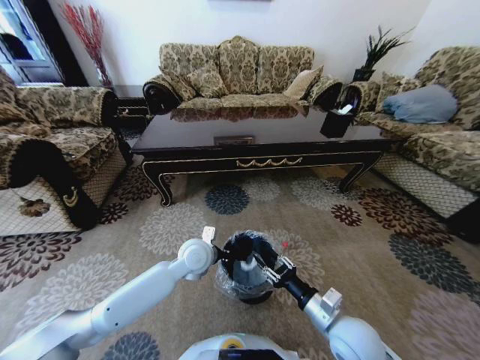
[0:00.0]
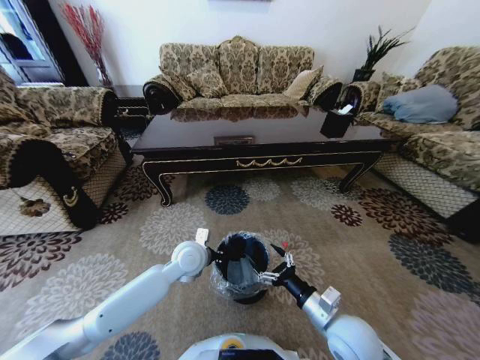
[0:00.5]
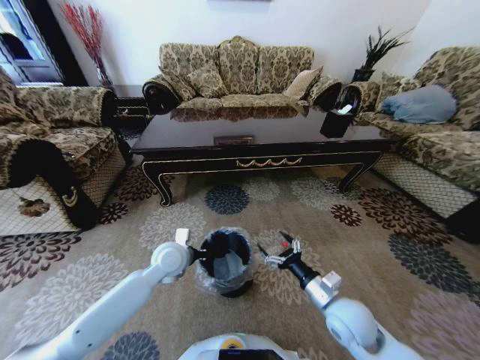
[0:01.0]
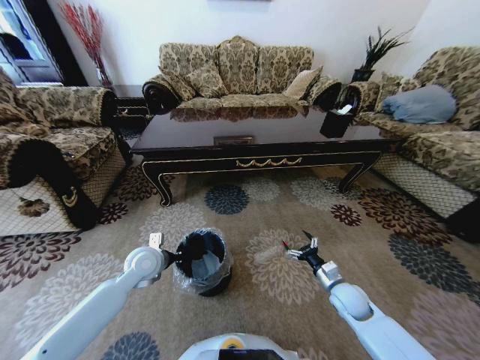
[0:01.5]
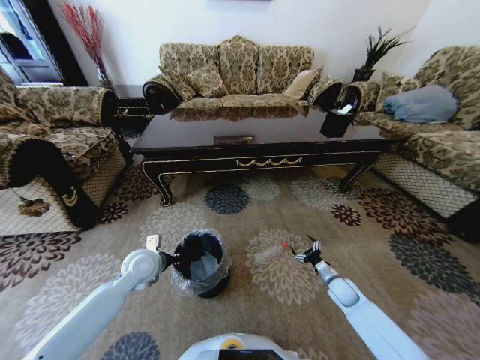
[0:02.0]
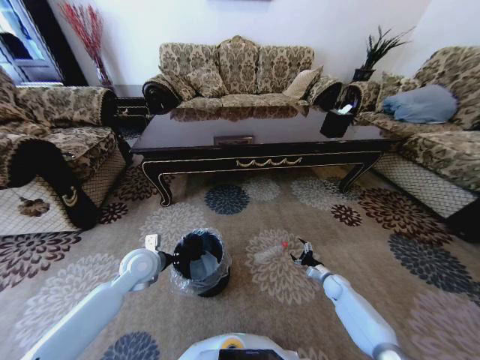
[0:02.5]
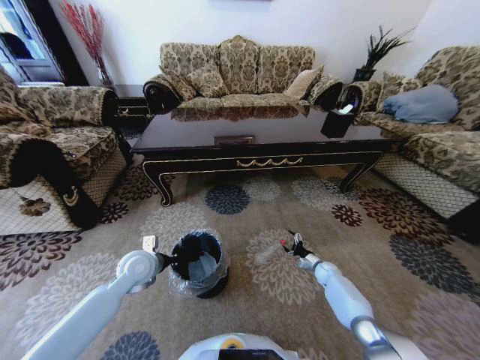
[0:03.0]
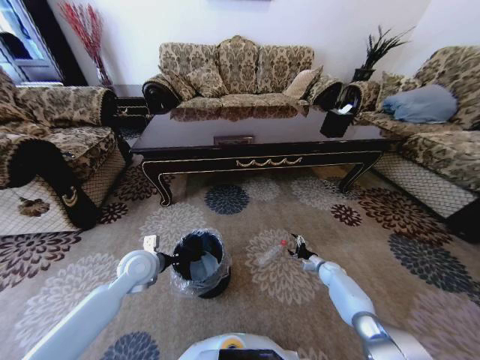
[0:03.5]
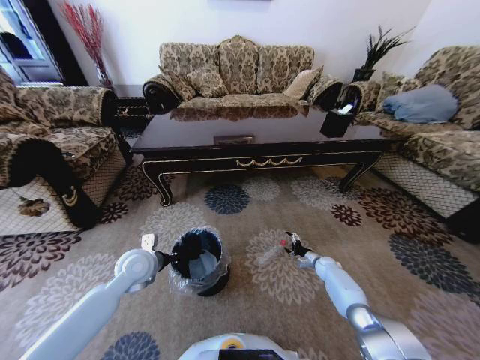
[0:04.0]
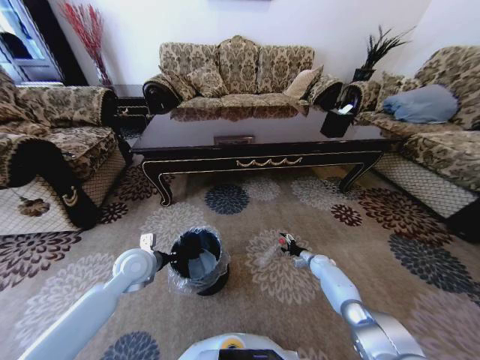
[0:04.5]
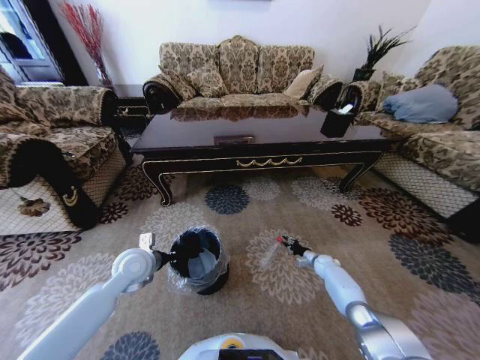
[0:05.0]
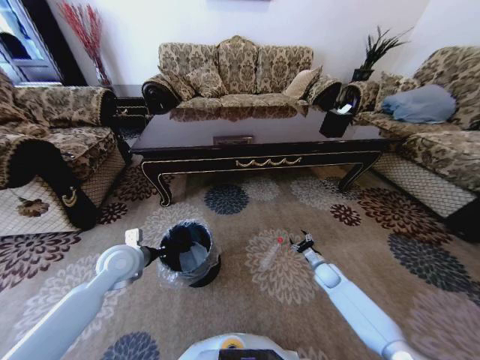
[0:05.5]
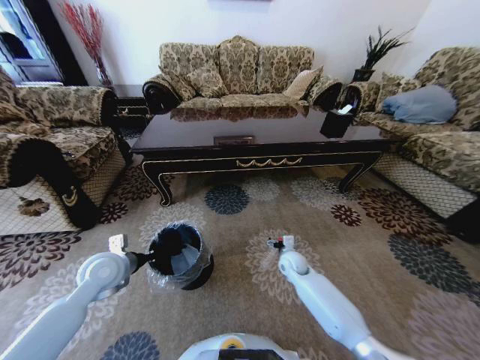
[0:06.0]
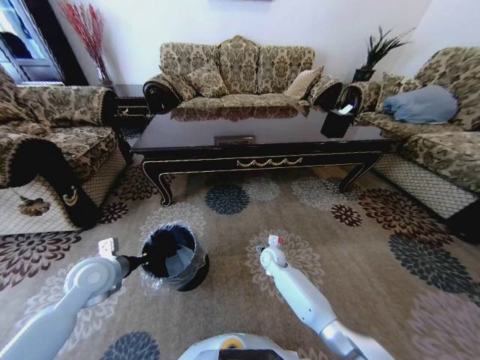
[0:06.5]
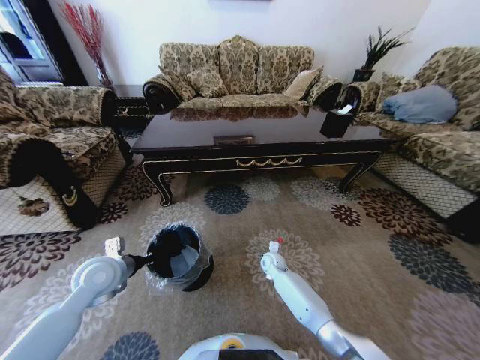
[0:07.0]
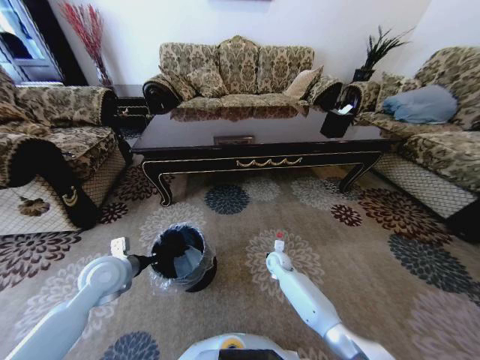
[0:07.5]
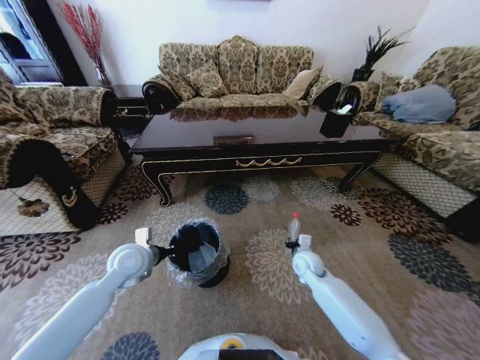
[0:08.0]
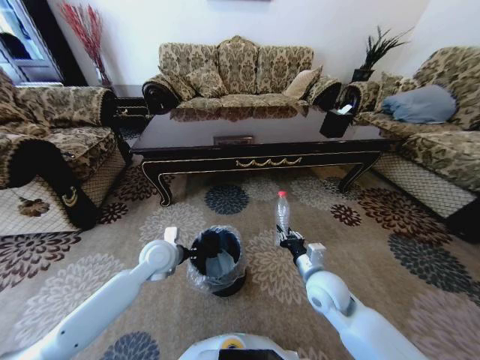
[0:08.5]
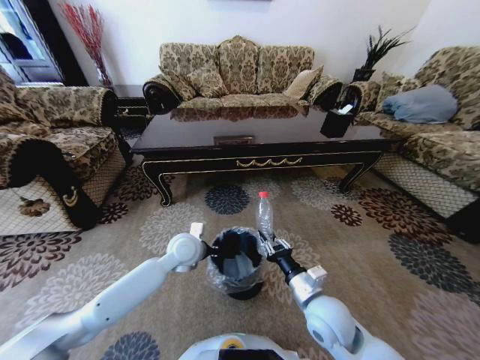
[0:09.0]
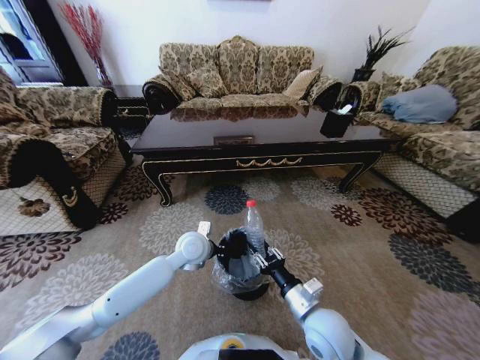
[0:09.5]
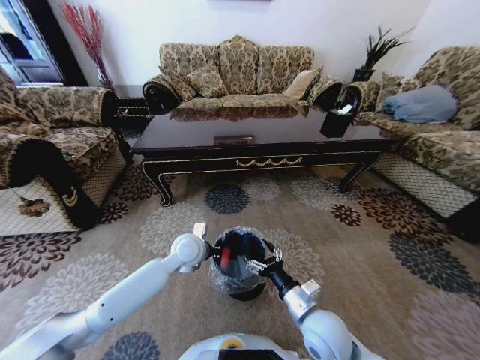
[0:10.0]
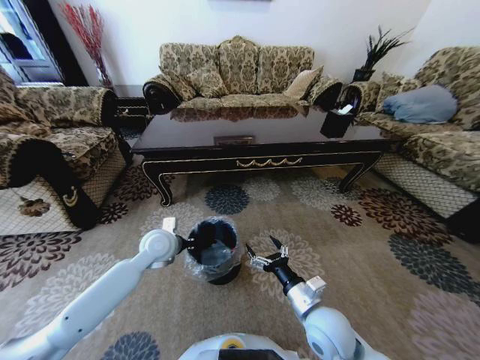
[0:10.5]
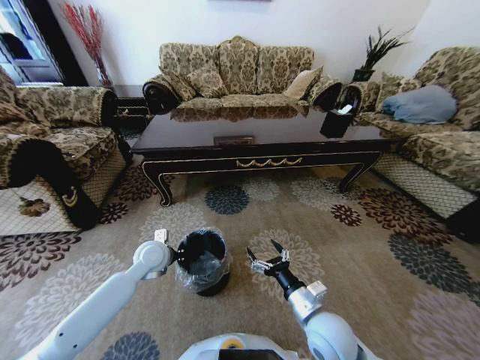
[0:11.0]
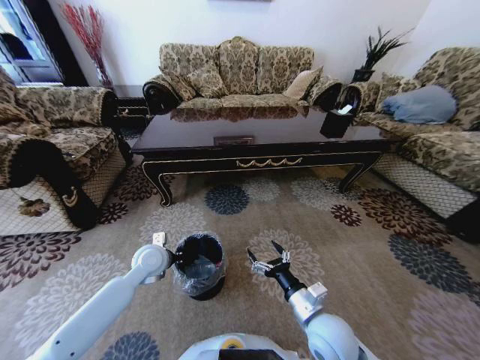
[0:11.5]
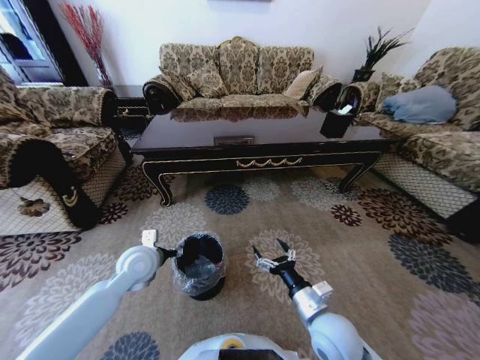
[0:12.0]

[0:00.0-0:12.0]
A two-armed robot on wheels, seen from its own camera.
Task of the whole recording: Move to the front of the table and pick up the trash from the floor, then place it into the trash bin.
0:00.0 to 0:02.0: The left gripper travels to the left by some 15 cm; the right gripper moves downward, forward and to the right, about 30 cm, and opens up.
0:02.0 to 0:04.0: The right gripper heads forward and downward, covering roughly 15 cm.
0:04.0 to 0:06.0: The left gripper is displaced to the left by about 5 cm. Meanwhile the right gripper travels to the left and upward by some 25 cm, and closes and opens again.
0:06.0 to 0:08.0: The right gripper moves upward, about 5 cm, and closes its fingers. The left gripper travels to the right by some 5 cm.
0:08.0 to 0:10.0: The left gripper goes approximately 15 cm to the right, while the right gripper travels backward by about 20 cm, and opens up.
0:10.0 to 0:12.0: The left gripper is displaced to the left by some 10 cm, and opens.

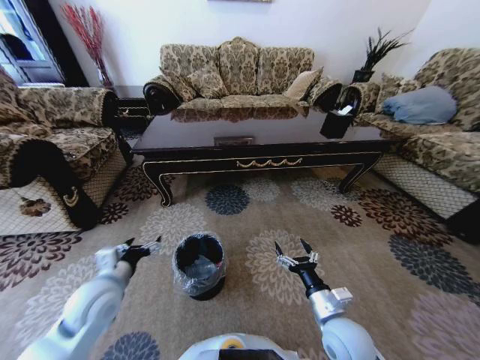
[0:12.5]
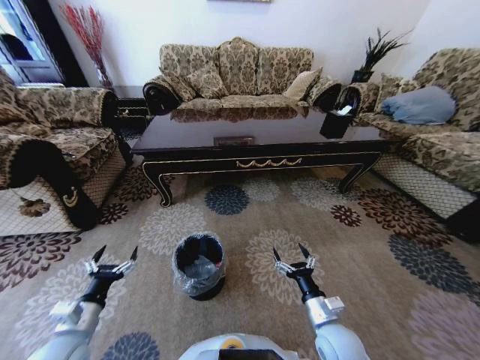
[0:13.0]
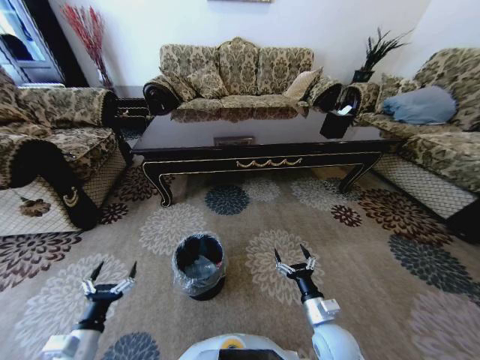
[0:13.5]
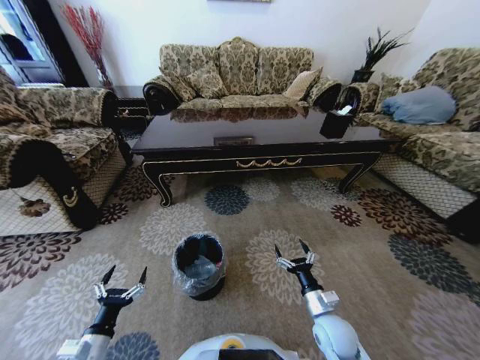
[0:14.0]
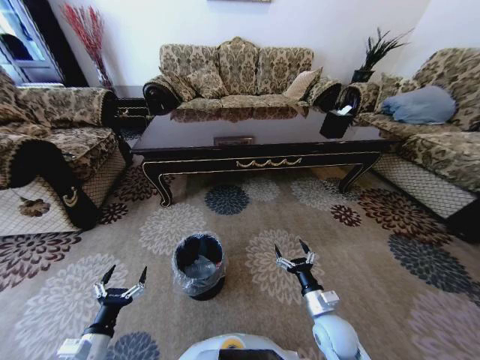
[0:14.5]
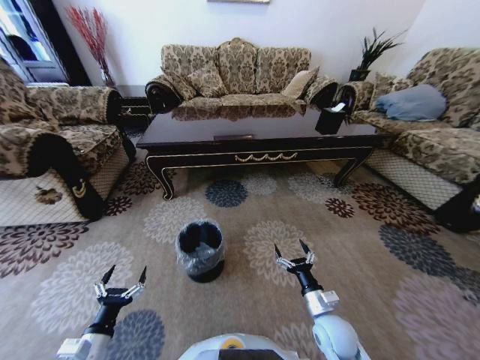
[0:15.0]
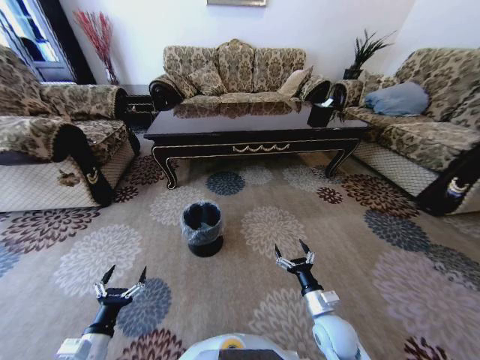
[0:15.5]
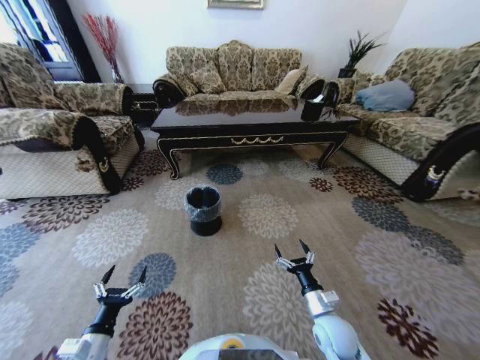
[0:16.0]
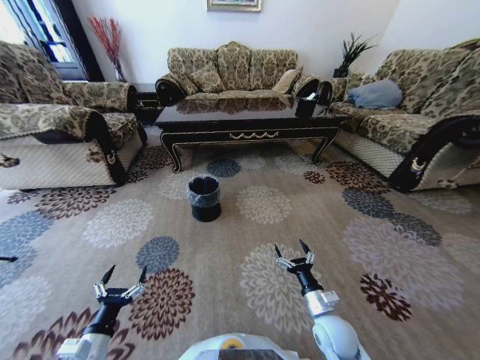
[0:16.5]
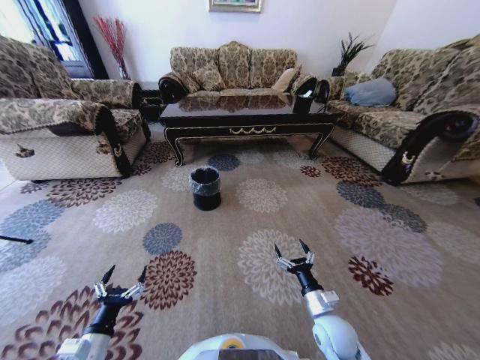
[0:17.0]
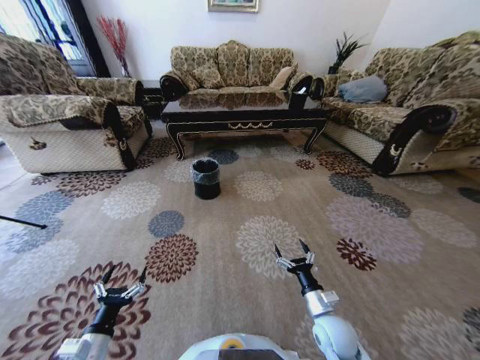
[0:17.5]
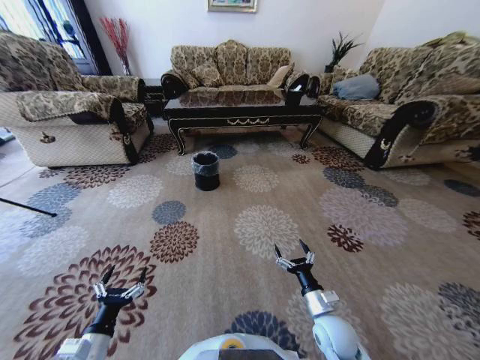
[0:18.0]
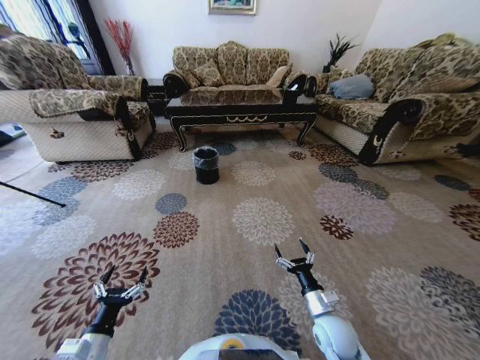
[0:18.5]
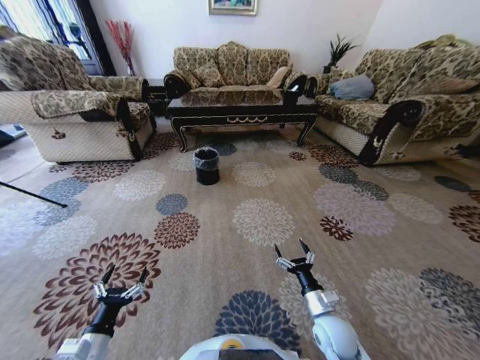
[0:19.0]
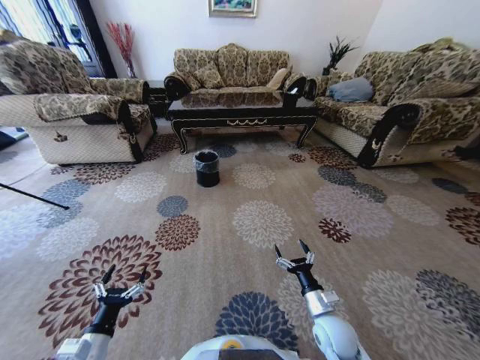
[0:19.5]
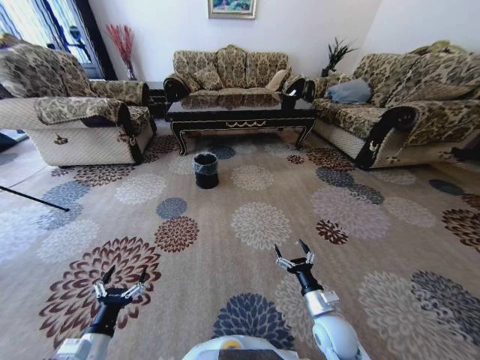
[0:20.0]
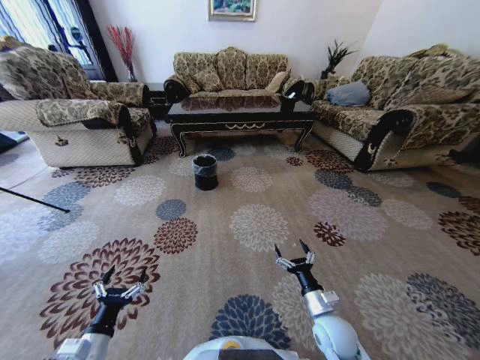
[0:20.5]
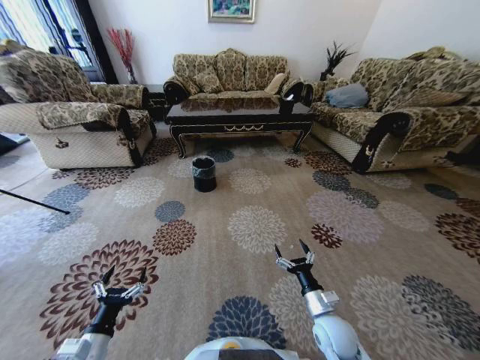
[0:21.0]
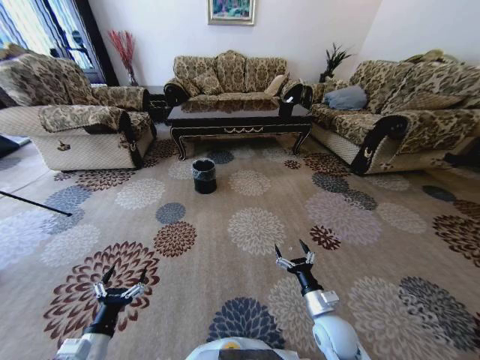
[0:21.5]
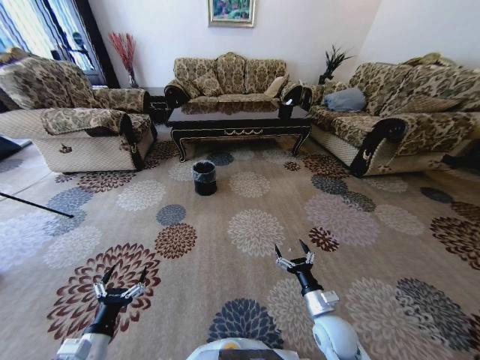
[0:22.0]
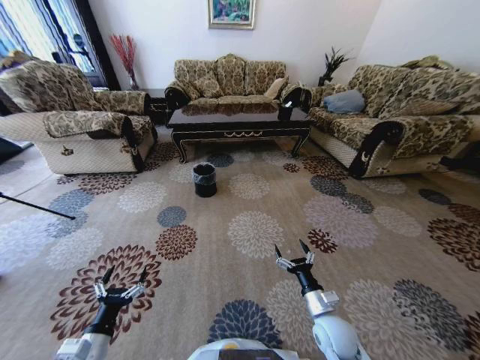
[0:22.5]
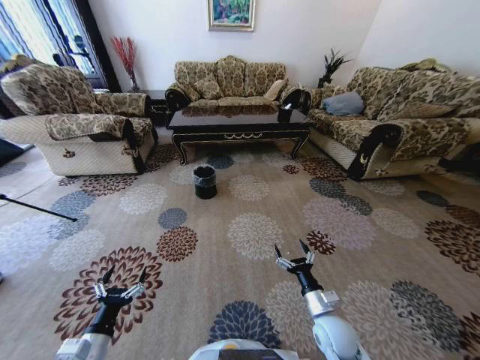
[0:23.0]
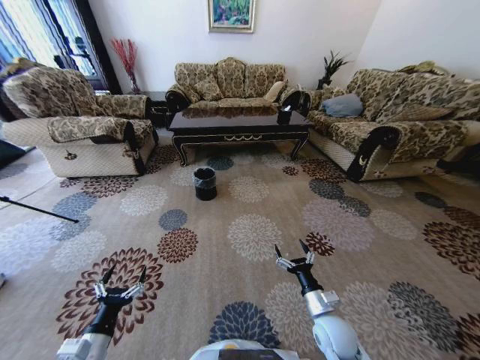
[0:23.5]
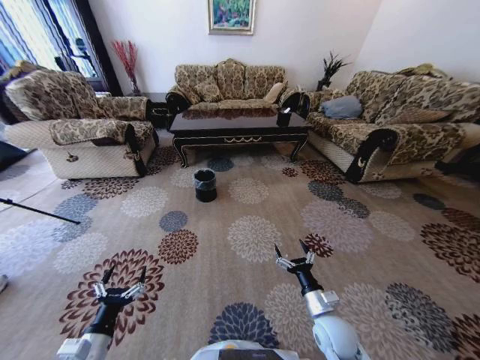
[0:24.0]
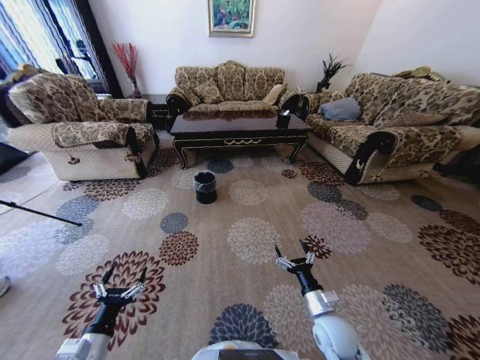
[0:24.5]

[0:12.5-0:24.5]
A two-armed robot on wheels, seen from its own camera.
Task of the whole recording: Move to the front of the table and pick up the trash from the floor, then place it into the trash bin.
0:12.5 to 0:14.5: The right gripper shifts roughly 5 cm downward. Meanwhile the left gripper shifts roughly 20 cm backward and downward.
